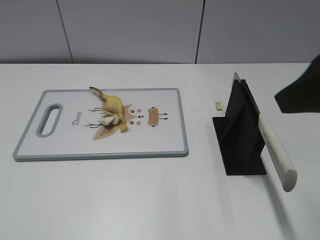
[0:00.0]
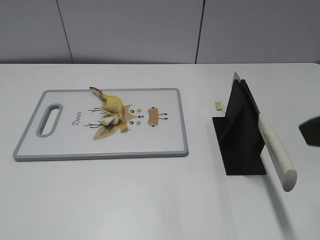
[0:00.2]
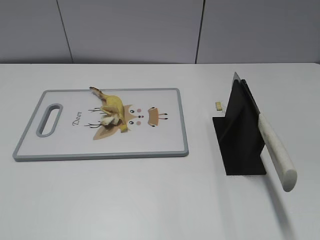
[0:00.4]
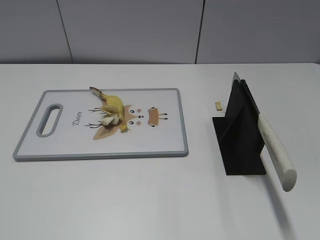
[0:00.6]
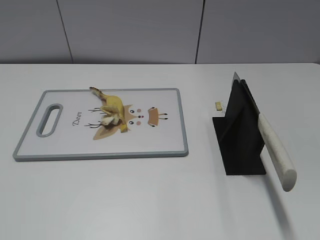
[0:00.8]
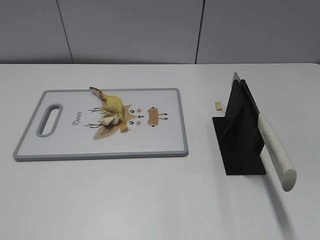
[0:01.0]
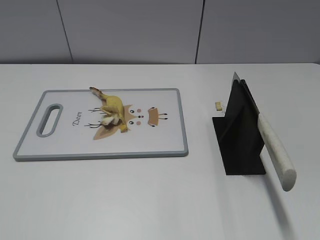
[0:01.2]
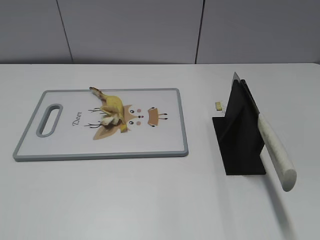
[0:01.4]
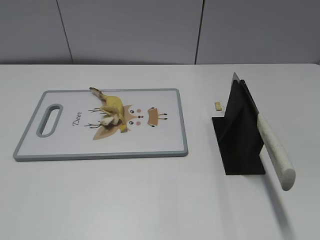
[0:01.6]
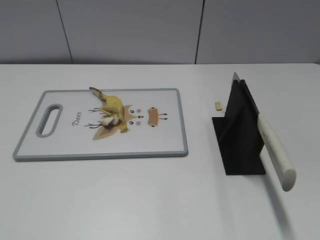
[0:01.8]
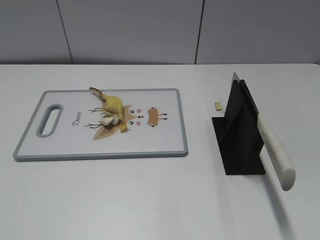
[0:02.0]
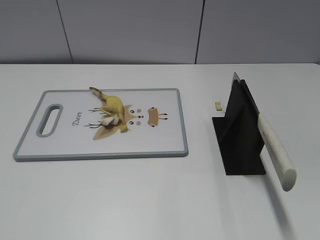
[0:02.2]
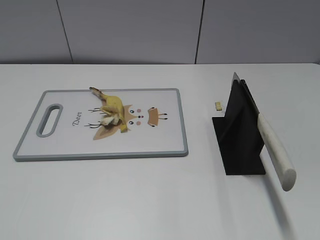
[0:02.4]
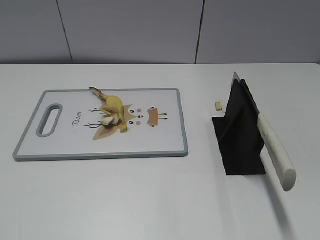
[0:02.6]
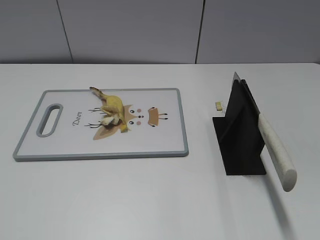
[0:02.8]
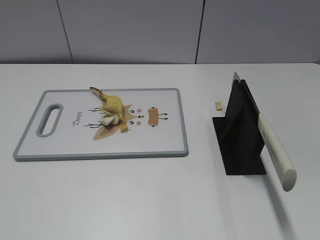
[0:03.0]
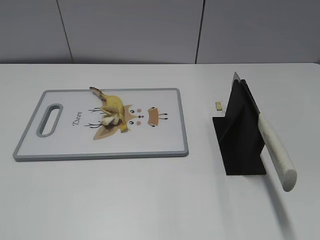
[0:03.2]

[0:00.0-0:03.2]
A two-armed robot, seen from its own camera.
Task of the whole recording: cut banana.
Step, 0:00.0 to 0:03.2: Place the knife on the storage rack with your right hand.
0:00.0 to 0:01.6: The right gripper moves backward and to the right, roughly 20 cm.

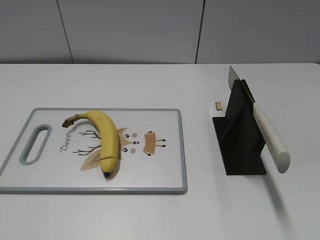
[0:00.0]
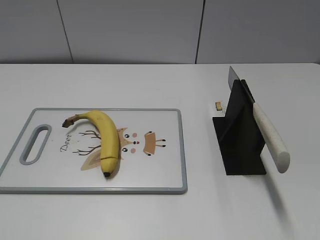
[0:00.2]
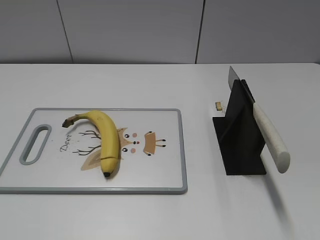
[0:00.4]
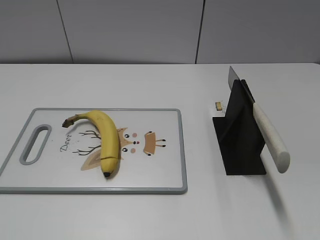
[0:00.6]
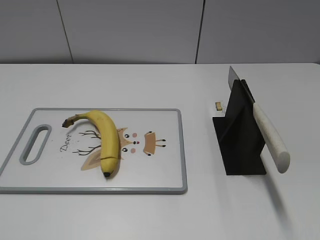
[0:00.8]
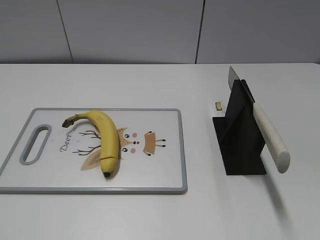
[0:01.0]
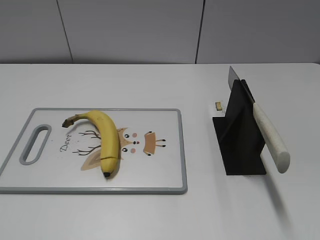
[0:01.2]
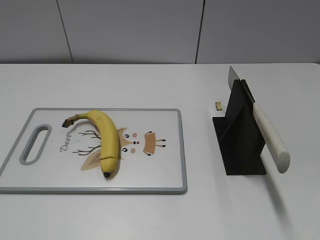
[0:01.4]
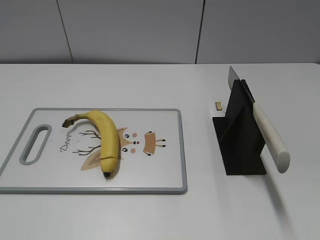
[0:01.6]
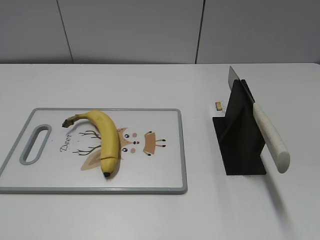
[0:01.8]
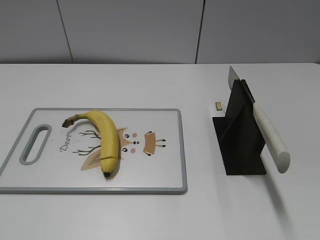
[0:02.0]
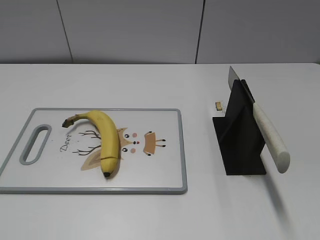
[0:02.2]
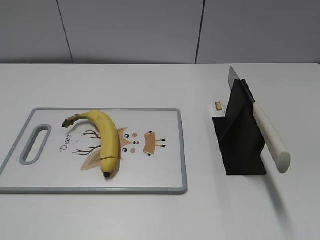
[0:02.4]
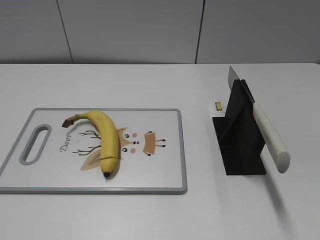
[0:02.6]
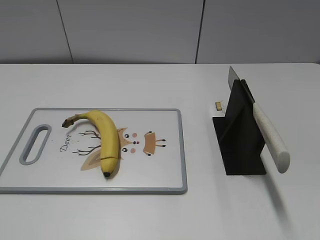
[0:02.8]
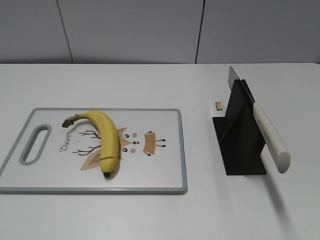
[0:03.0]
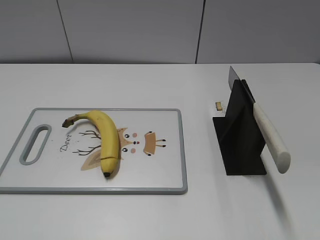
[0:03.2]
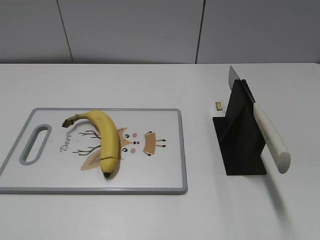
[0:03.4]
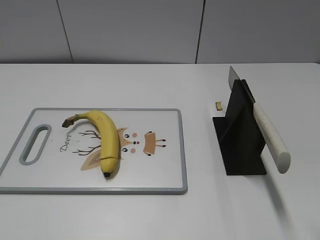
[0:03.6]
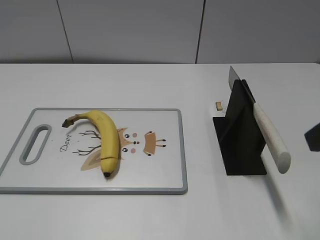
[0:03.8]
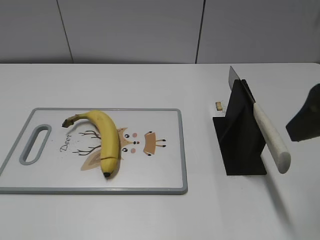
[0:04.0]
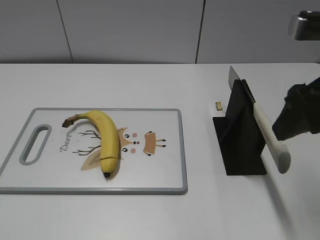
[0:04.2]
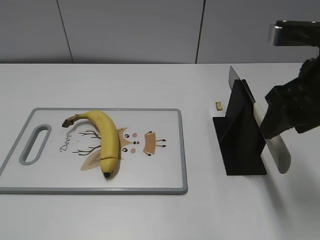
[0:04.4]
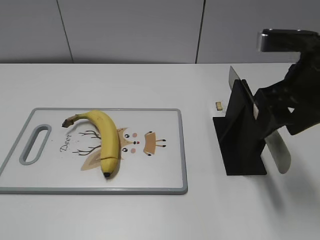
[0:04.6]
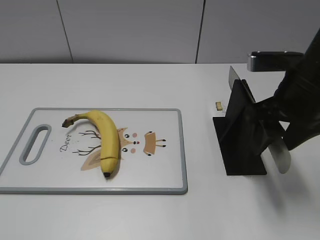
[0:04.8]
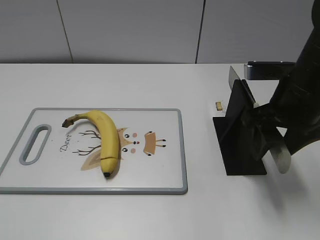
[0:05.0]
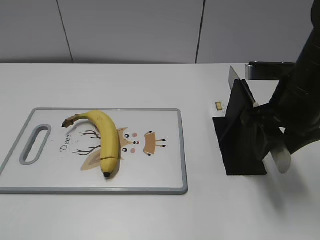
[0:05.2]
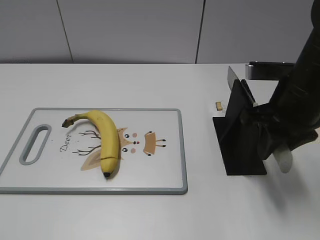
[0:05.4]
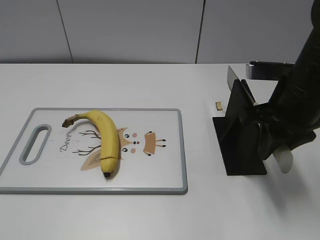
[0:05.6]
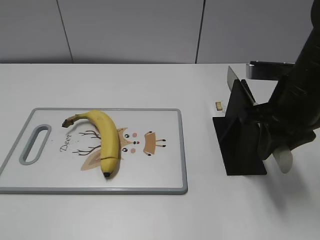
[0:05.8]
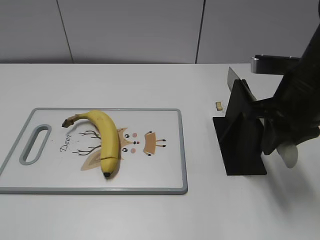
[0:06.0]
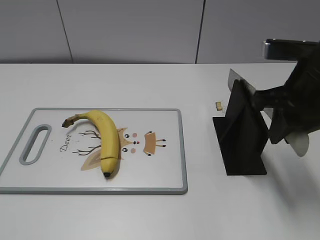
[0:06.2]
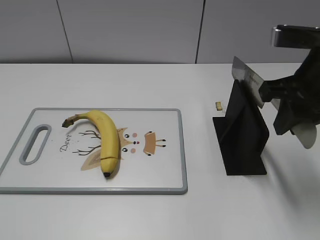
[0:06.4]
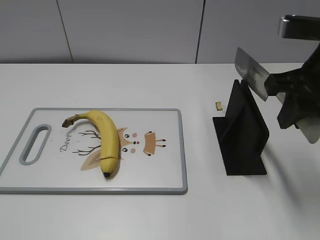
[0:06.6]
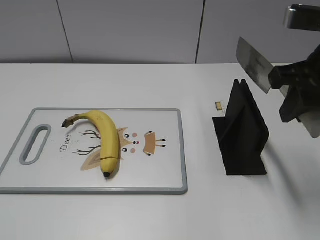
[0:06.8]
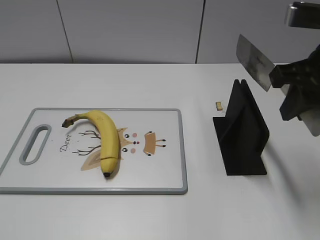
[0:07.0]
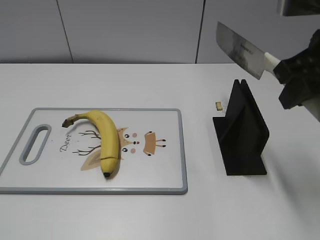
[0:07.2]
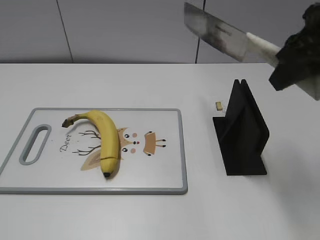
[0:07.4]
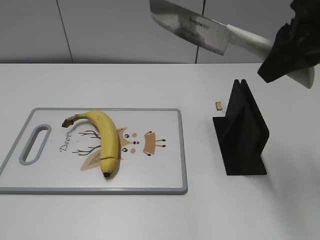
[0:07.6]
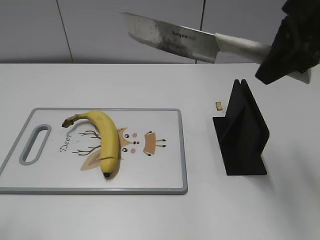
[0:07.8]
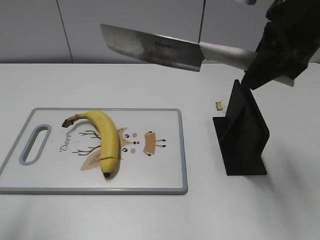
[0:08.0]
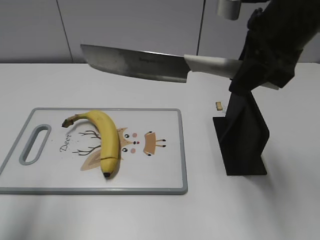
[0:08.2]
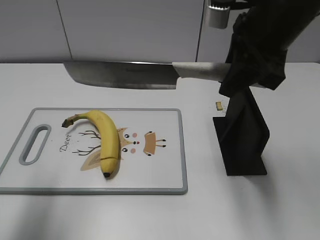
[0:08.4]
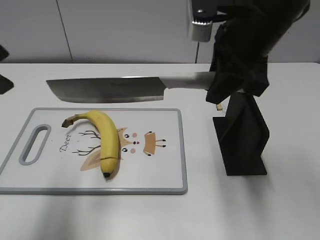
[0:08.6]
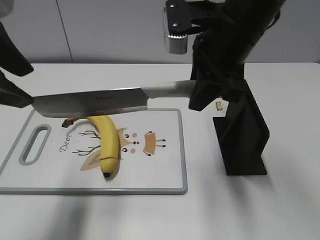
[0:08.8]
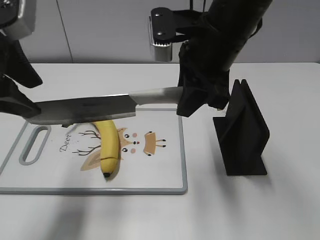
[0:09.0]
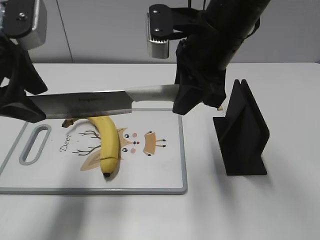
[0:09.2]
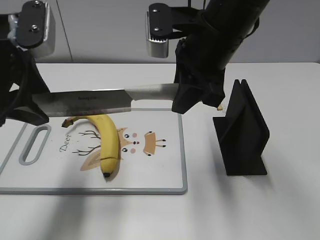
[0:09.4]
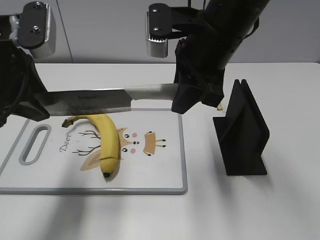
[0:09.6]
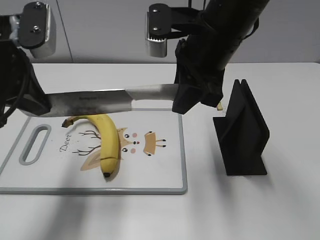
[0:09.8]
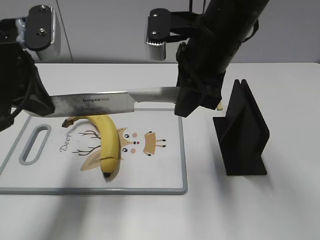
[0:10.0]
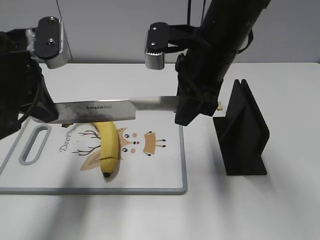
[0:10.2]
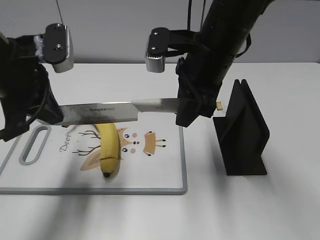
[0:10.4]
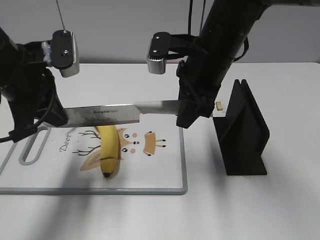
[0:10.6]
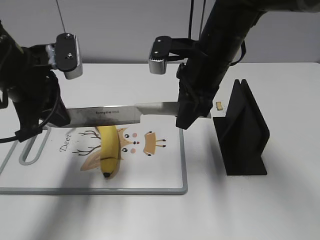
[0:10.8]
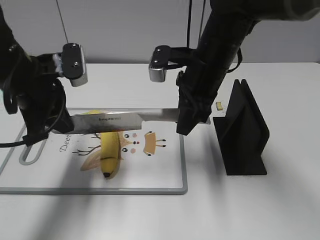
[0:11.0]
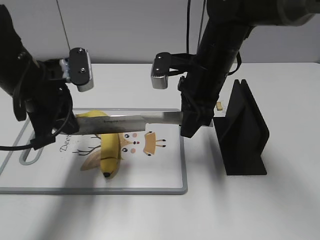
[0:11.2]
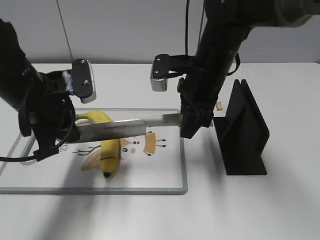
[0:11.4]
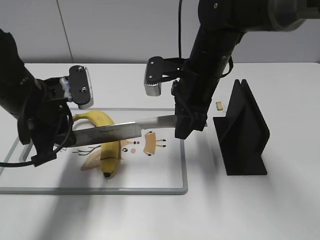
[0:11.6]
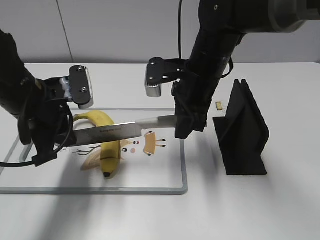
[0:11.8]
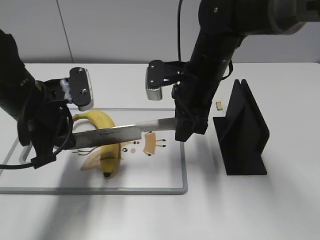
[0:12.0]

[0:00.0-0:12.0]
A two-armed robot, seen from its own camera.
Task of the whole recording: cut banana.
Step, 0:00.0 to 0:07.0: Grab the knife handle with your right hand.
0:03.0 to 0:04.4: The right gripper moves forward and to the left, about 20 cm.
0:04.4 to 0:06.0: The right gripper changes place by some 5 cm, and closes.
0:06.0 to 0:07.6: The left gripper is displaced forward by approximately 5 cm, while the right gripper travels upward by about 10 cm.
0:07.6 to 0:09.0: The right gripper travels to the left and downward by roughly 15 cm; the left gripper shifts approximately 20 cm forward and to the right.
0:09.0 to 0:10.4: The left gripper goes about 5 cm downward, and closes its fingers.
0:10.4 to 0:12.0: The two grippers go approximately 5 cm downward.

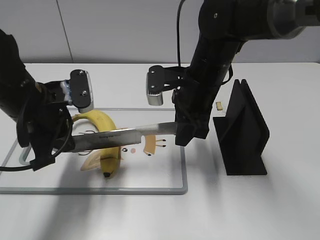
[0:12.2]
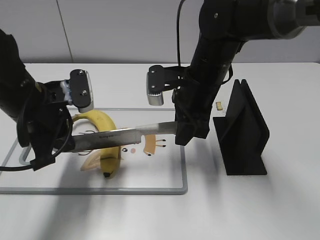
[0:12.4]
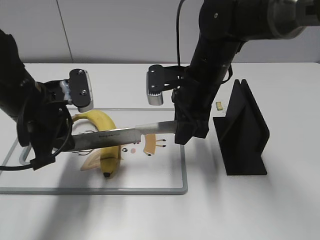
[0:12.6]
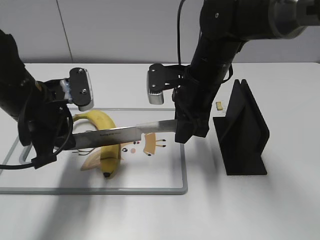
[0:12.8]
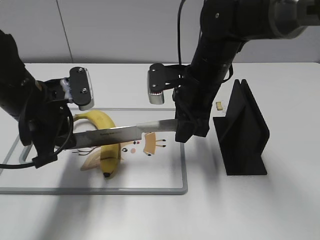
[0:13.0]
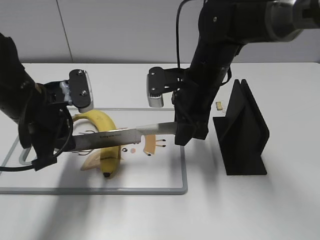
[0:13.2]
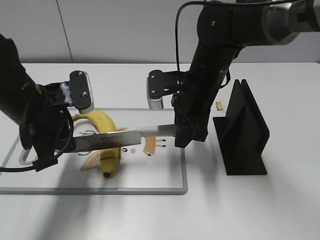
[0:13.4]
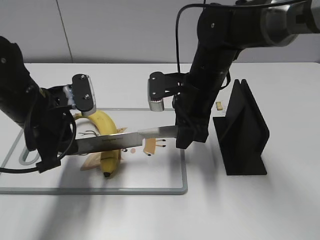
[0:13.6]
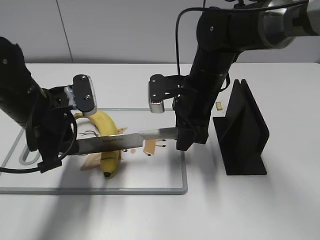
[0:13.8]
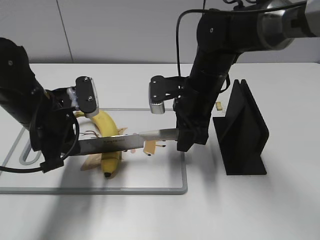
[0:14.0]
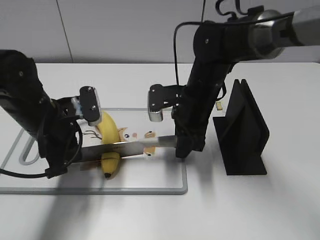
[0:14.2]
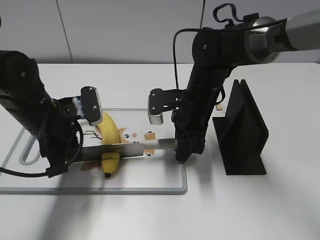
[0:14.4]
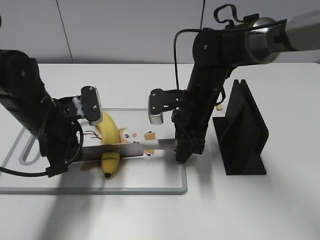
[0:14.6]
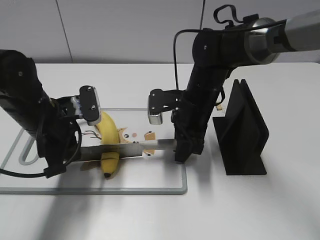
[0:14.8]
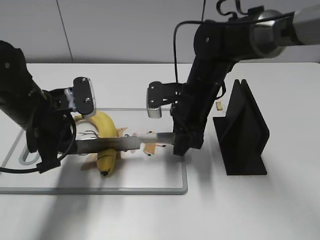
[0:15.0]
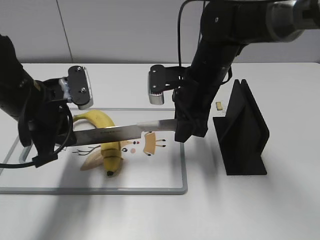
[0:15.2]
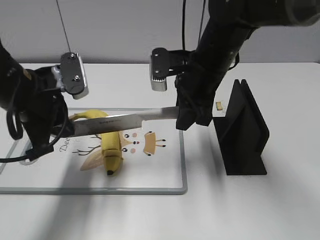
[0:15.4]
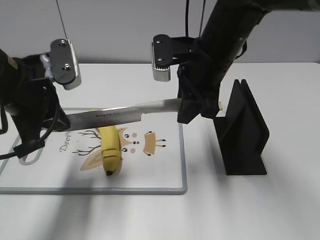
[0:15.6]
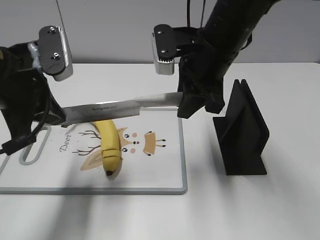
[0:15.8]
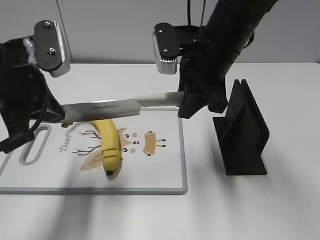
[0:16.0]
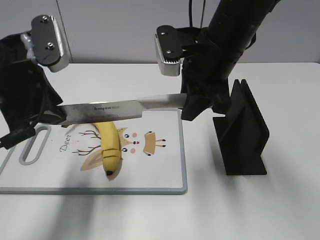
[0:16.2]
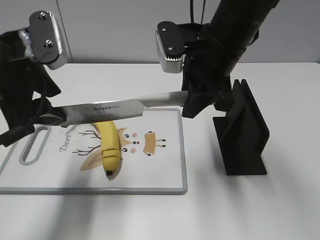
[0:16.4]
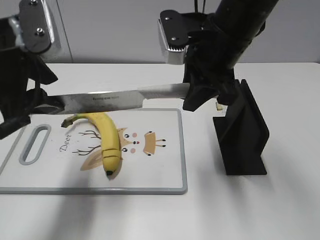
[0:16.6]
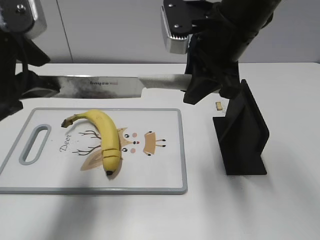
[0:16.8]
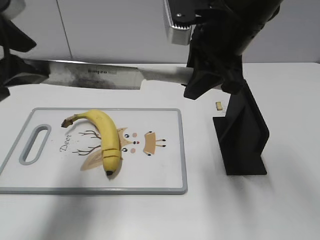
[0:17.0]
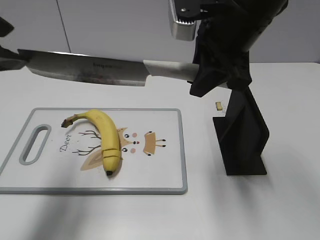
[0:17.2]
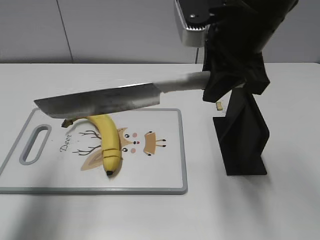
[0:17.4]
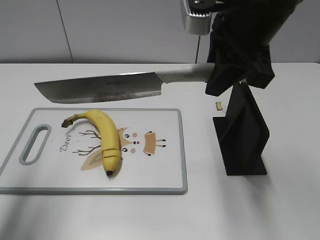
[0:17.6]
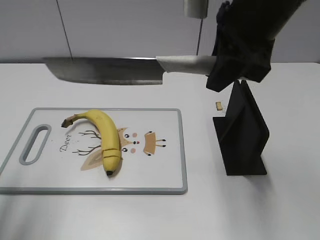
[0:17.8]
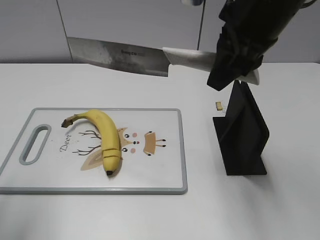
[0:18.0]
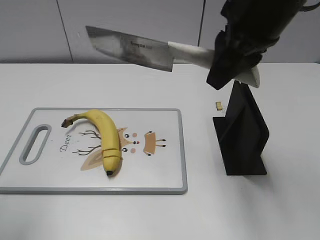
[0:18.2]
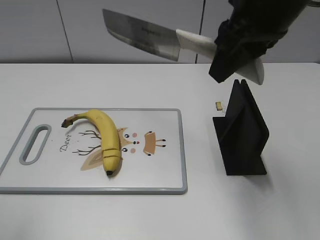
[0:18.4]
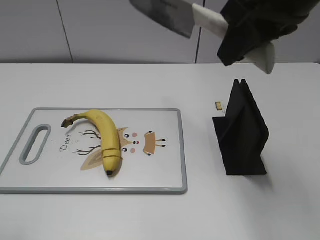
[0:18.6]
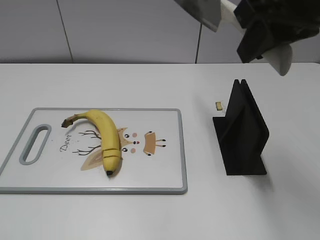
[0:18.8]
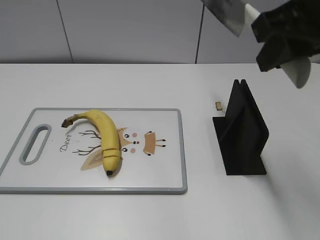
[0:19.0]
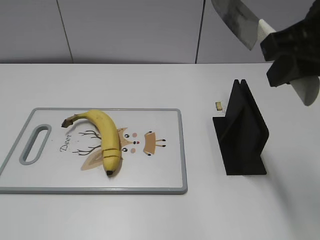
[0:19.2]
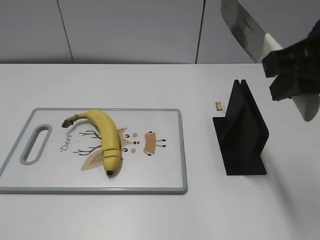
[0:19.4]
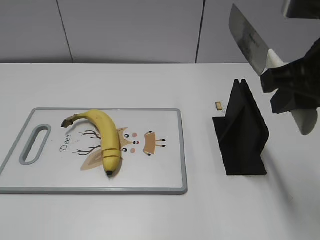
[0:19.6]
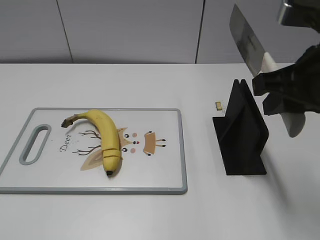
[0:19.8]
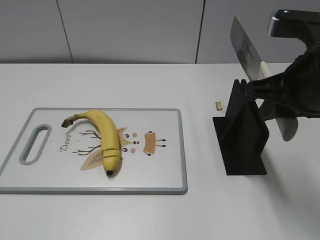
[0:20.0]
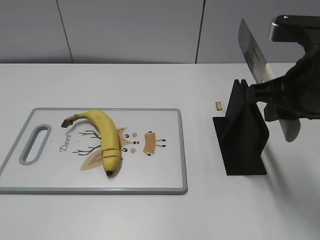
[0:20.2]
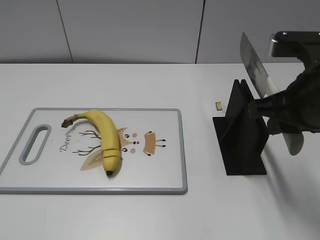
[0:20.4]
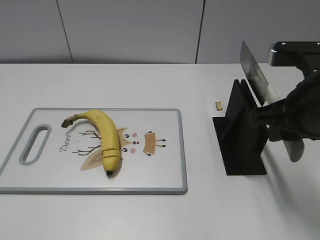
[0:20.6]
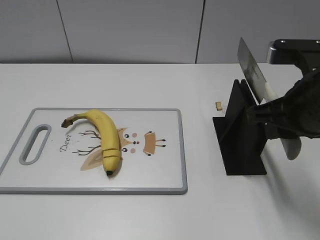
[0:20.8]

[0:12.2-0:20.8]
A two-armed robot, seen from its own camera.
Task of the whole recording: cut banana.
Step, 0:12.2 to 0:18.0: Cut the banana with your right hand.
Step, 0:18.4 to 0:19.8: Secure the blade with your left hand.
0:12.2 to 0:15.0: There are only small adjustments of the grippers.
0:15.0 to 0:16.6: The two grippers go some 10 cm upward. The left gripper opens its fingers.
0:16.6 to 0:18.0: The right gripper shifts some 5 cm upward. Meanwhile the left gripper shifts about 15 cm to the left, backward and upward.
0:18.0 to 0:19.4: The left gripper heads backward and downward, covering roughly 20 cm. The right gripper travels to the right and backward by approximately 10 cm.
0:19.4 to 0:20.8: The right gripper heads downward, covering approximately 10 cm.
